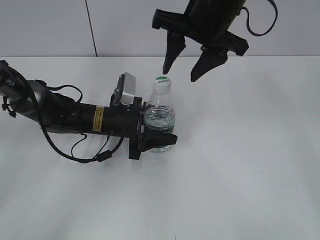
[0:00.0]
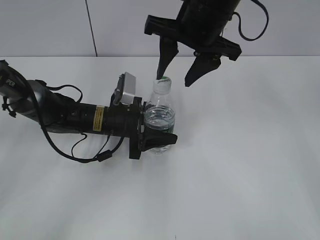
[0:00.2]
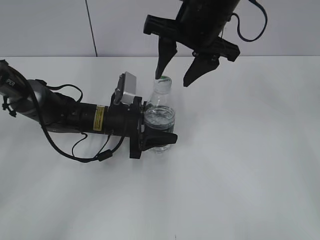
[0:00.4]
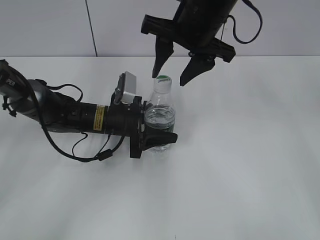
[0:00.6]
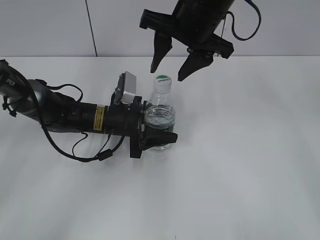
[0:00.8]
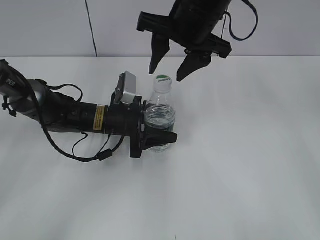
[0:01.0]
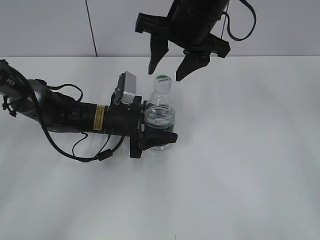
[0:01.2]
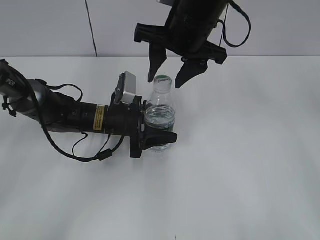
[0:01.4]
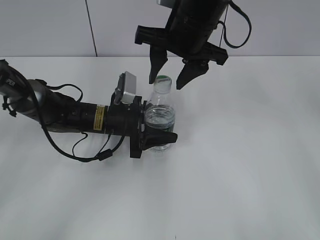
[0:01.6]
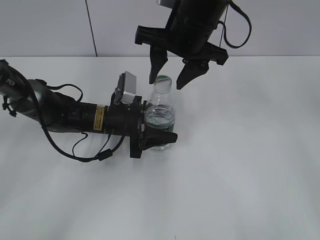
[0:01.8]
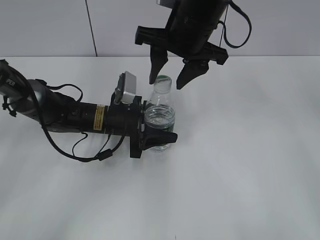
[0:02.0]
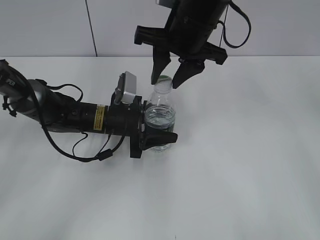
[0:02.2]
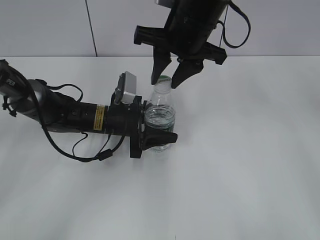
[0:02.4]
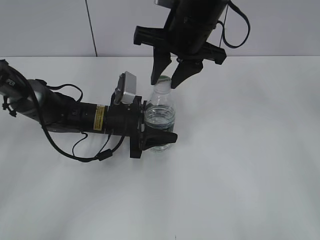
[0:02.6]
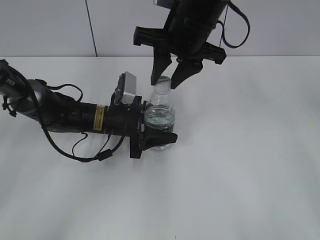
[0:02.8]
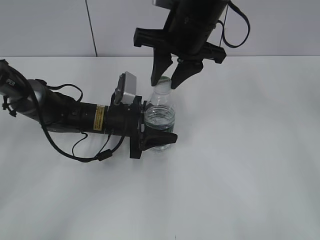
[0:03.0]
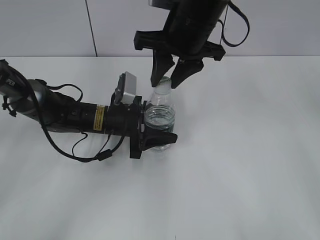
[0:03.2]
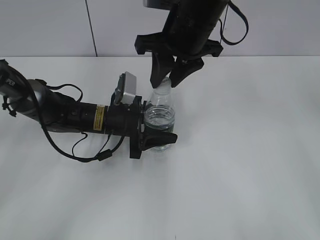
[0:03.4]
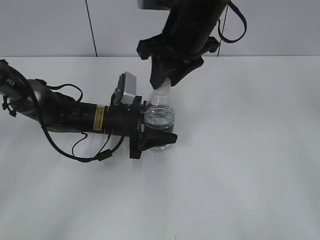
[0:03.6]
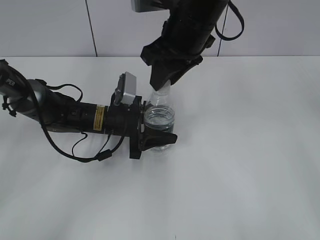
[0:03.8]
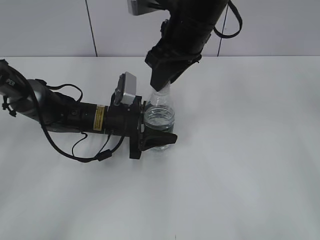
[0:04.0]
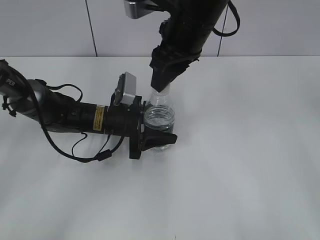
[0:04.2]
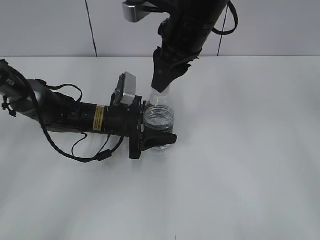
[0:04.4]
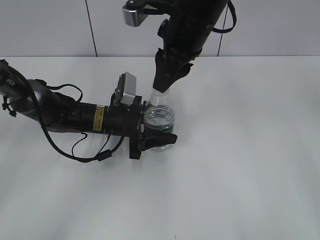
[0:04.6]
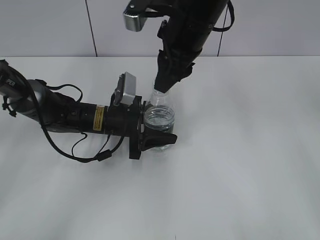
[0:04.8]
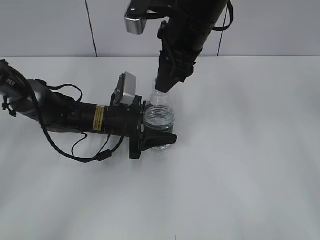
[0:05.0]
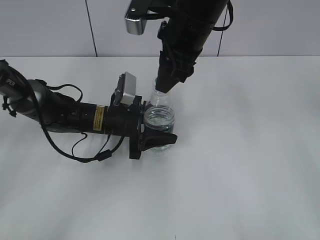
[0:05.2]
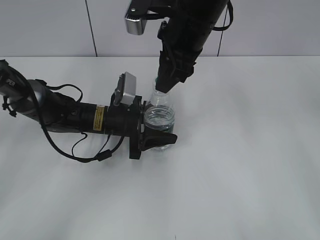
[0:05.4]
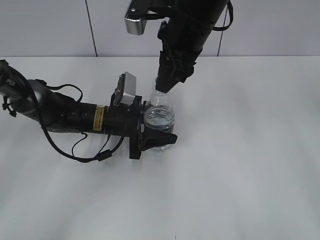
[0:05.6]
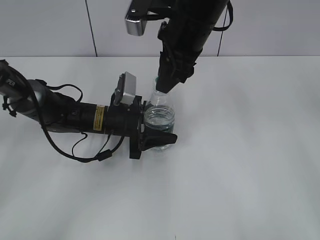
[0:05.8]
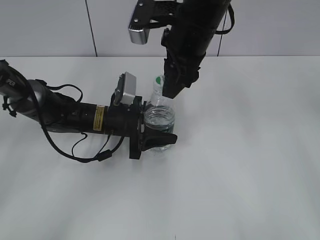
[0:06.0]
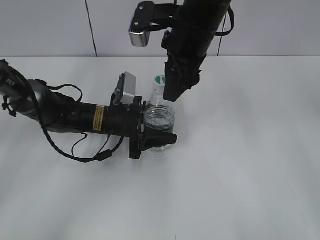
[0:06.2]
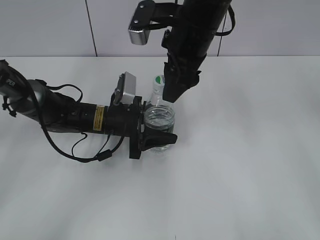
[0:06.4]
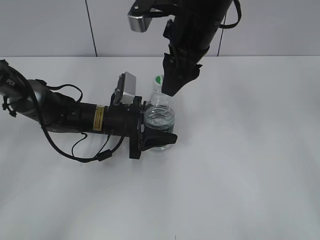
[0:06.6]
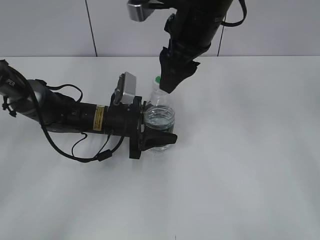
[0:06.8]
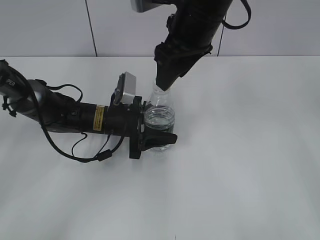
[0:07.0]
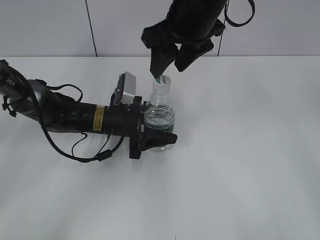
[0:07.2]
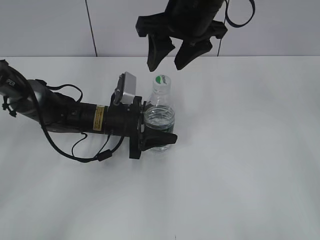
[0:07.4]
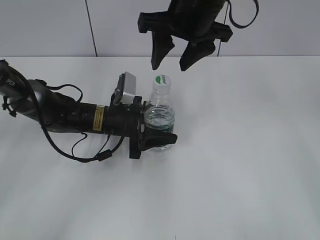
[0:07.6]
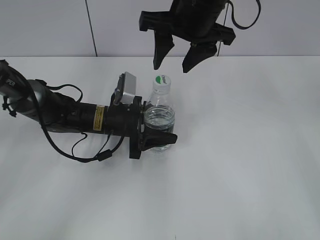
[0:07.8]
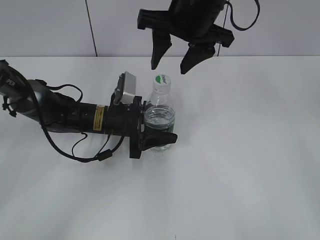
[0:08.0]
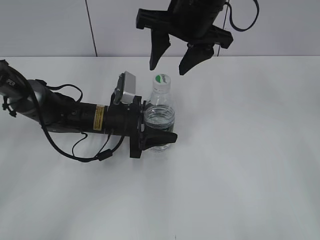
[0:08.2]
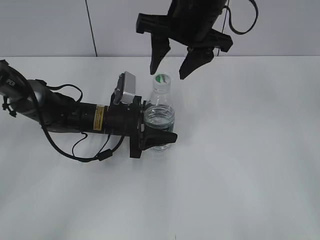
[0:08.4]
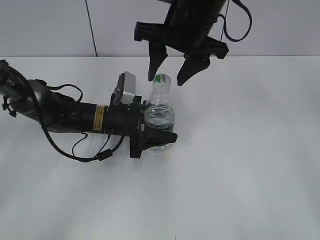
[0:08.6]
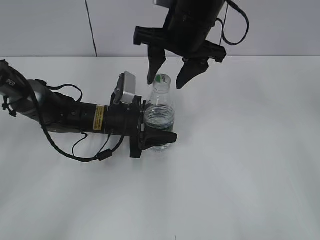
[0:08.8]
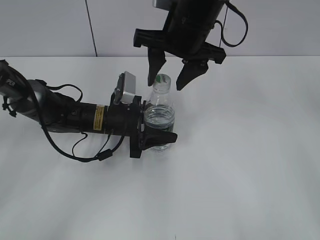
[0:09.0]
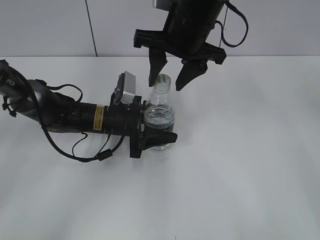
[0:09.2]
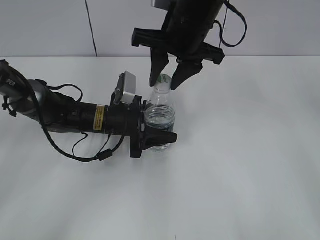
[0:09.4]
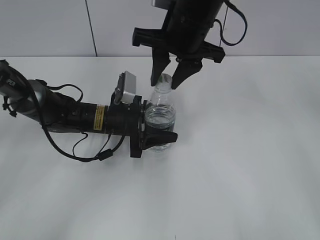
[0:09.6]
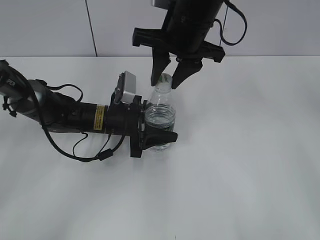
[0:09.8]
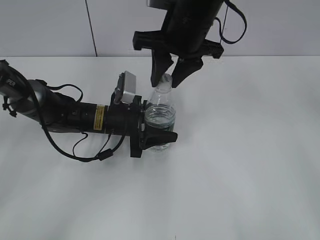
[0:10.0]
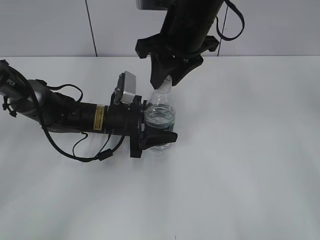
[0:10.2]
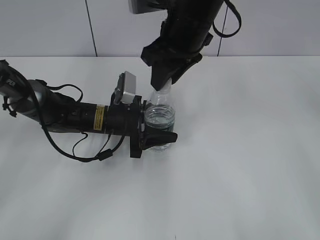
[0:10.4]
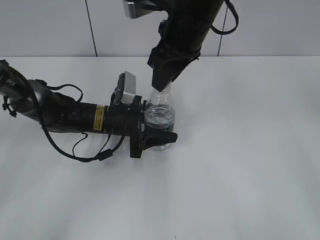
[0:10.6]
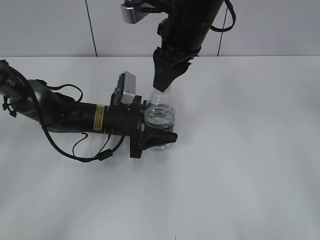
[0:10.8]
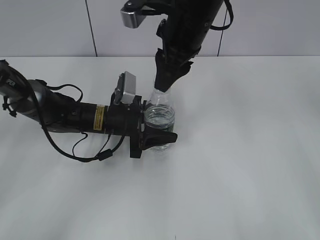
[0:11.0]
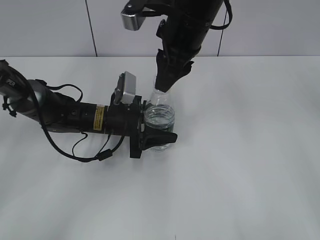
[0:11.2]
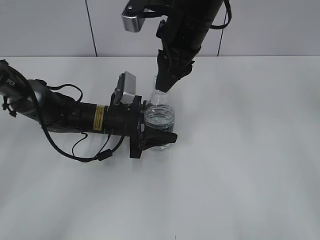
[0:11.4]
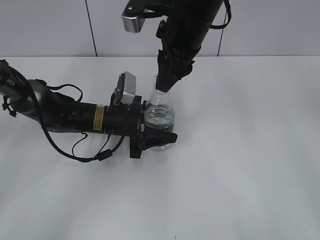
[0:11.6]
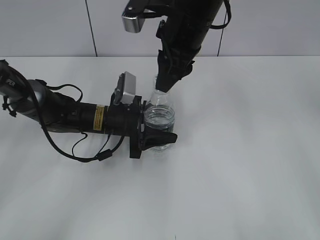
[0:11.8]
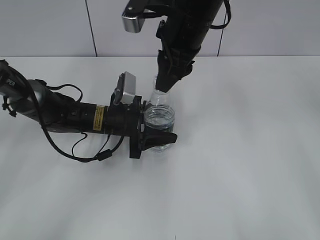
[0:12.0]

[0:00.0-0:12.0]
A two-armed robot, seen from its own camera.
0:00.0 to 0:01.6: The grippers stay close to where they were, moving slightly.
0:01.6 to 0:03.0: The right gripper closes up.
0:06.0 to 0:07.6: The right gripper opens up.
0:07.6 to 0:09.0: The grippers move only a little.
0:09.0 to 0:10.4: The right gripper closes.

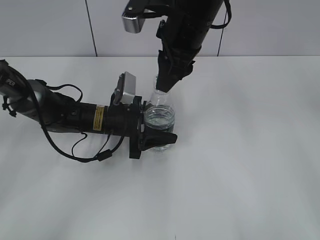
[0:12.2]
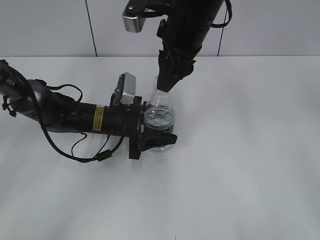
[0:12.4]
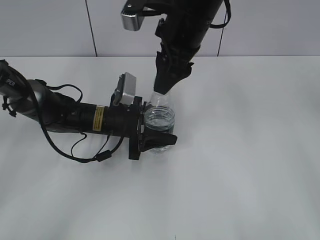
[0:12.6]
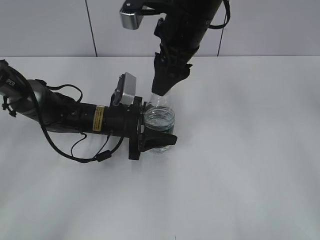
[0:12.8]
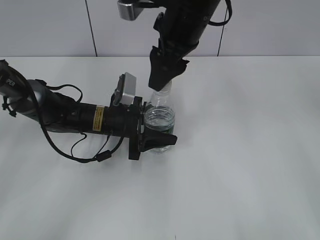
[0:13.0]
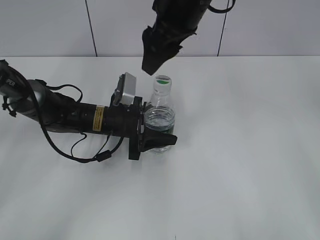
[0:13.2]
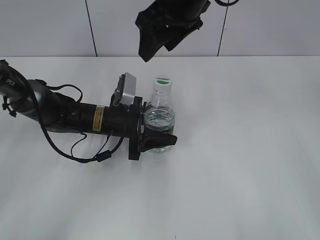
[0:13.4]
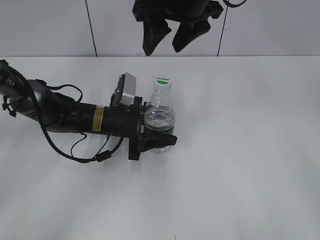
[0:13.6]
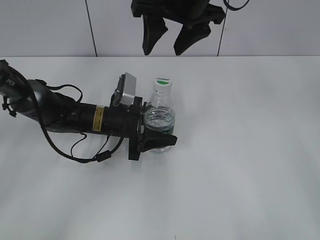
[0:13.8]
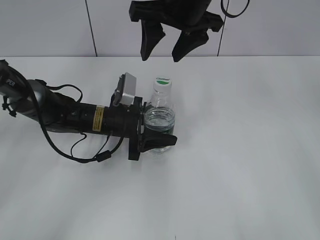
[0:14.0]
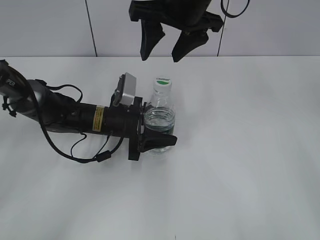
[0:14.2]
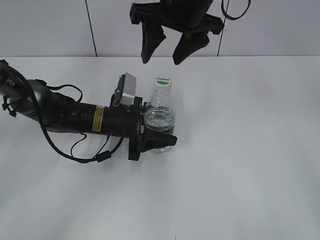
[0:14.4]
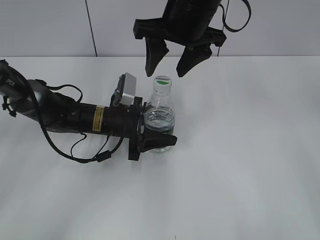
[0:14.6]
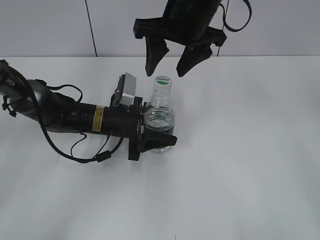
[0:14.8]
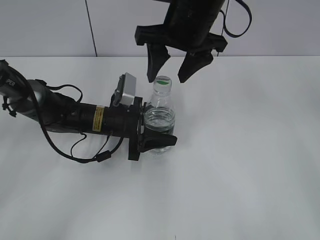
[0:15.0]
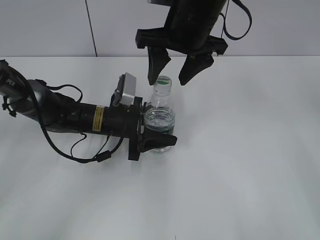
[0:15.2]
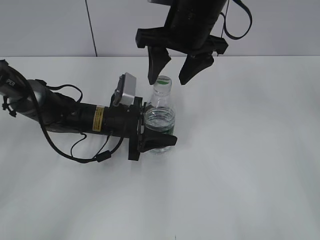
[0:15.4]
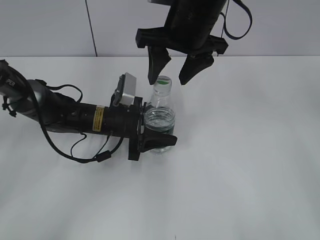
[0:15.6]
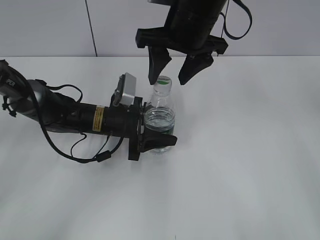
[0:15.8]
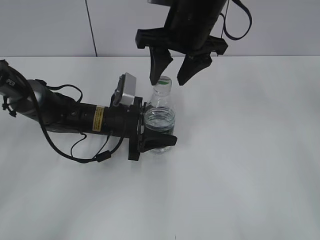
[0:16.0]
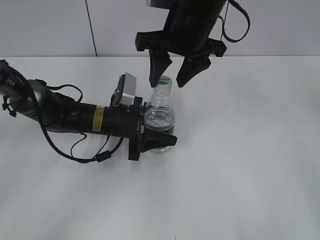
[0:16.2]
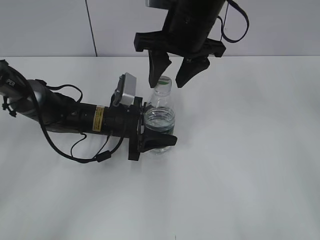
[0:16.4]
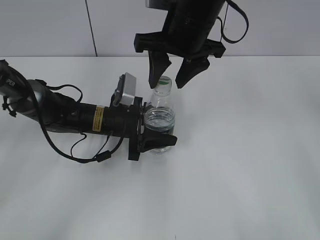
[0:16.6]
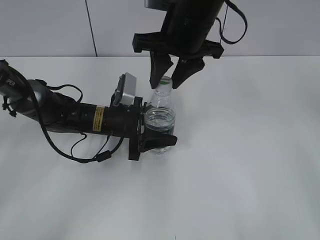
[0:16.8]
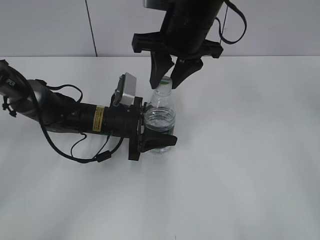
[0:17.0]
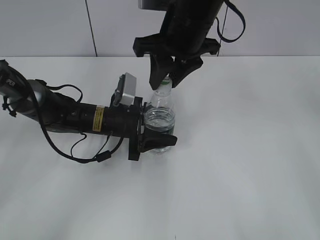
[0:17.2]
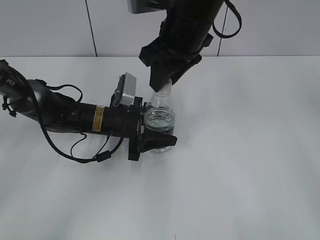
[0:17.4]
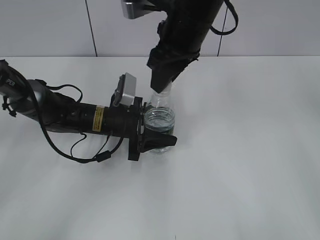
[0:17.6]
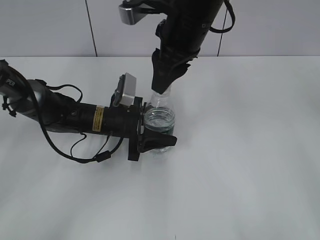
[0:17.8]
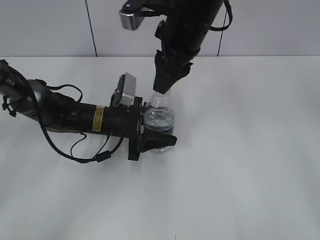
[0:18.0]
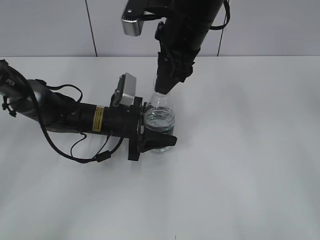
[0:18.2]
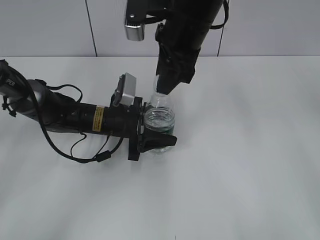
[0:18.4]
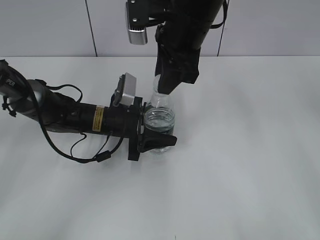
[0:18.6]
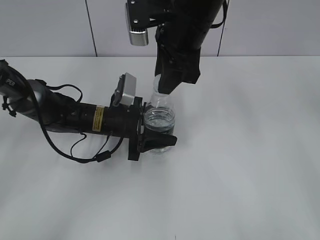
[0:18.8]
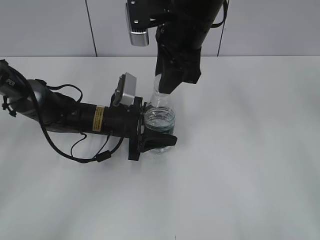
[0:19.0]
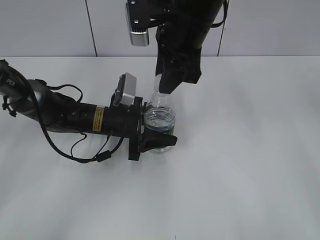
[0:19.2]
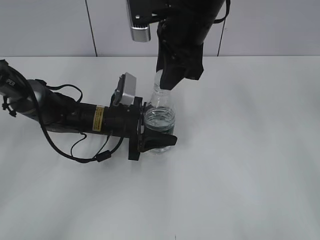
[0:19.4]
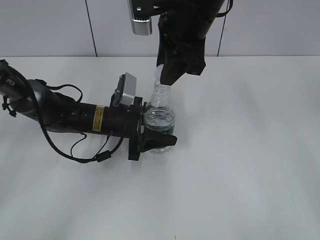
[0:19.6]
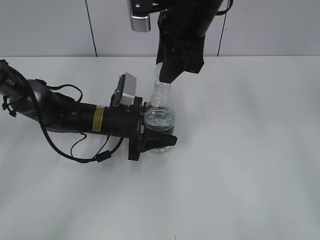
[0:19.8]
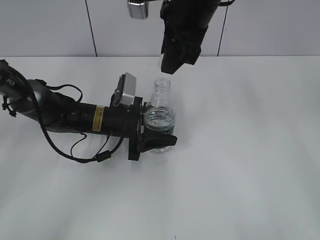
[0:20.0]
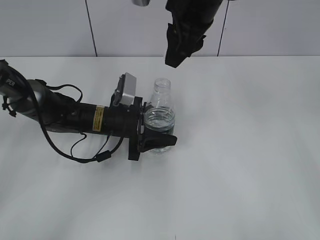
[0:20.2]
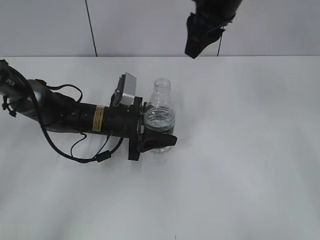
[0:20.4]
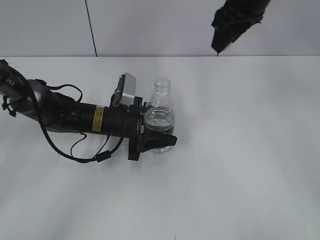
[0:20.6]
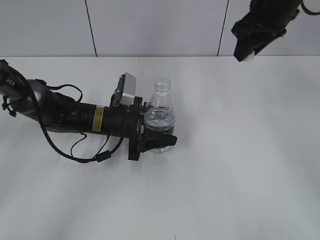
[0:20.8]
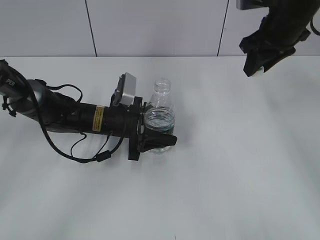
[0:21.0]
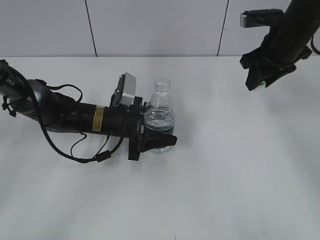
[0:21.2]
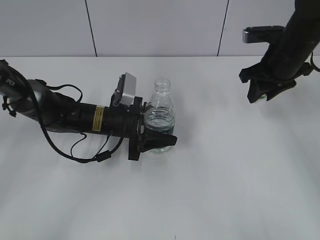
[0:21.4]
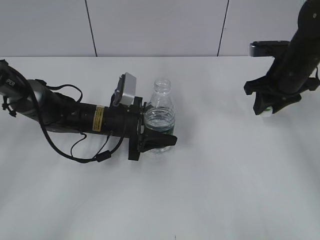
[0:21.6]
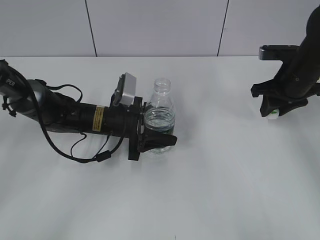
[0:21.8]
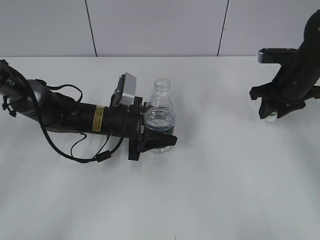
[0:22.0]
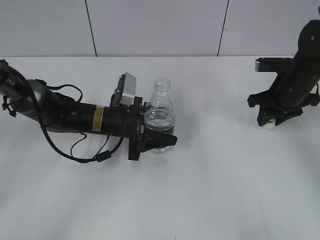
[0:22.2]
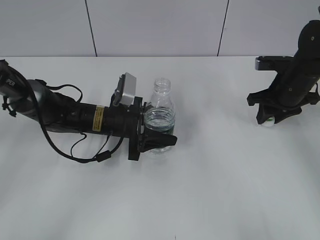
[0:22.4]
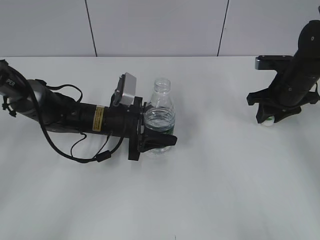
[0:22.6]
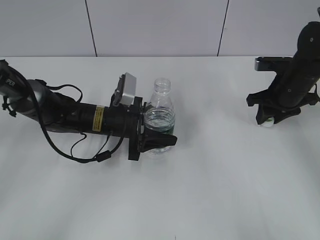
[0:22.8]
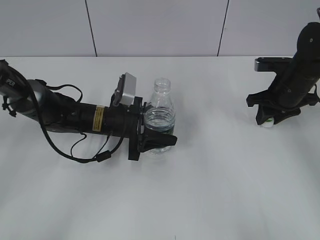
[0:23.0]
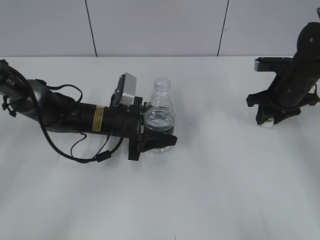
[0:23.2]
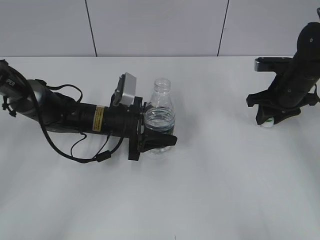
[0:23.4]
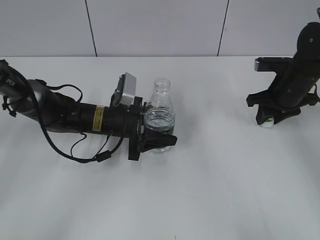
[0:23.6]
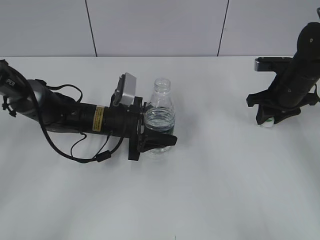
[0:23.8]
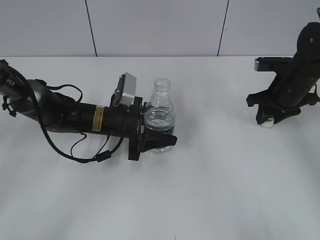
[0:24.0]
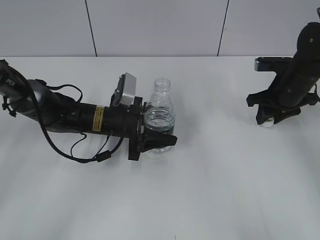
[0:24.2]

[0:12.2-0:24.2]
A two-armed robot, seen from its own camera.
Step, 0:12.2 to 0:19.8: Unscrew the bottle cap with the right gripper while holding the bottle with the left gripper.
0:12.2 to 0:13.8: The right gripper opens.
0:13.8 to 0:15.2: The grippers move only a little.
0:15.2 to 0:16.6: Both grippers stay put.
0:16.6 to 0:18.2: The right gripper closes up.
0:18.2 to 0:19.8: The grippers move only a little.
0:19.8 to 0:21.2: The right gripper is displaced to the right and downward by approximately 20 cm.
0:21.2 to 0:22.6: The right gripper shifts about 10 cm downward.
0:22.6 to 0:24.2: The two grippers keep their place.
